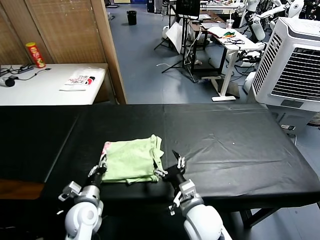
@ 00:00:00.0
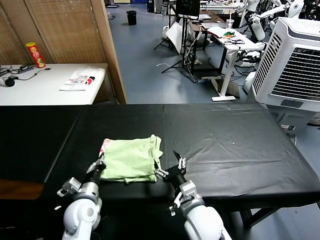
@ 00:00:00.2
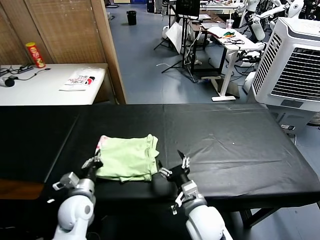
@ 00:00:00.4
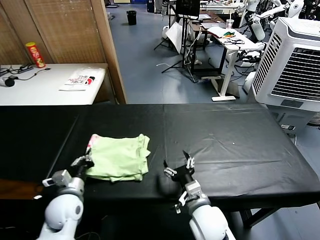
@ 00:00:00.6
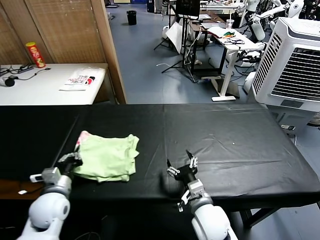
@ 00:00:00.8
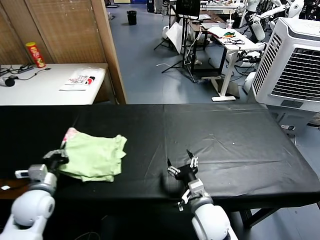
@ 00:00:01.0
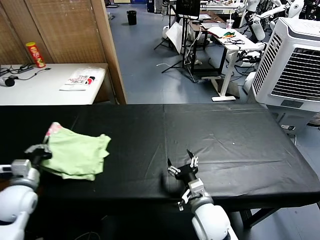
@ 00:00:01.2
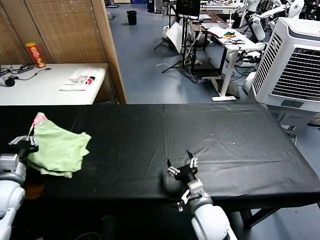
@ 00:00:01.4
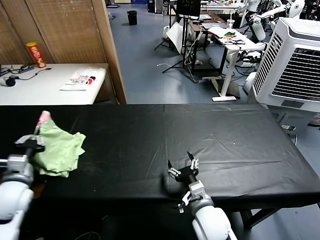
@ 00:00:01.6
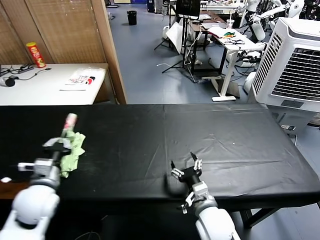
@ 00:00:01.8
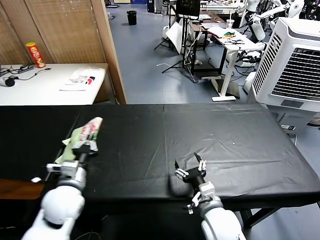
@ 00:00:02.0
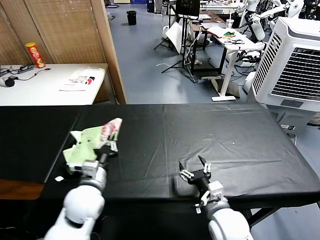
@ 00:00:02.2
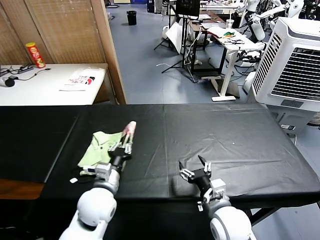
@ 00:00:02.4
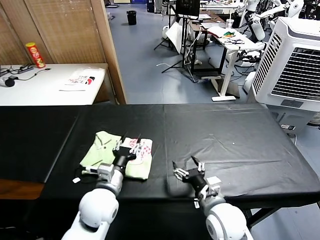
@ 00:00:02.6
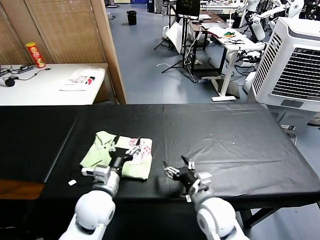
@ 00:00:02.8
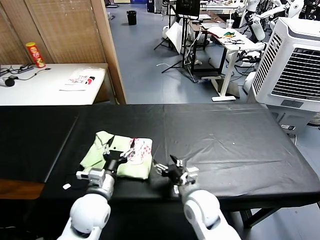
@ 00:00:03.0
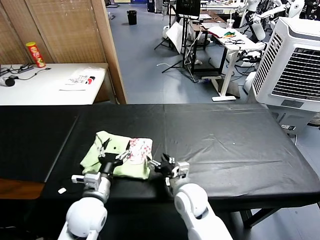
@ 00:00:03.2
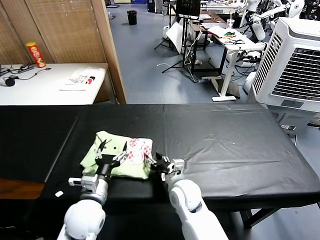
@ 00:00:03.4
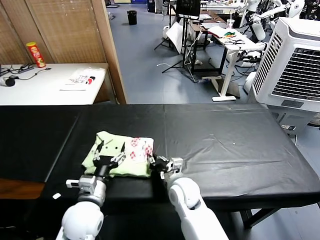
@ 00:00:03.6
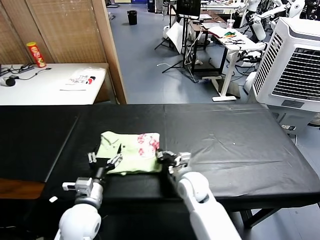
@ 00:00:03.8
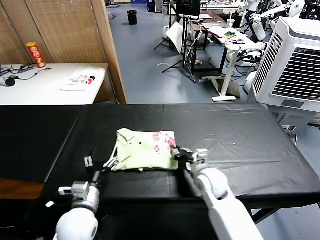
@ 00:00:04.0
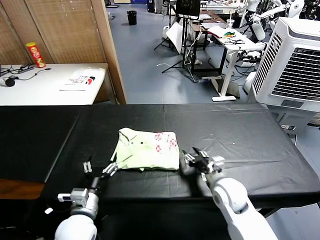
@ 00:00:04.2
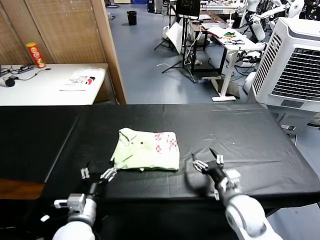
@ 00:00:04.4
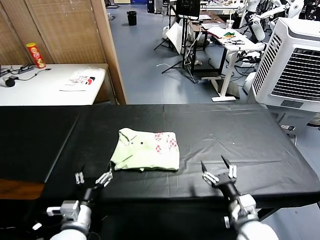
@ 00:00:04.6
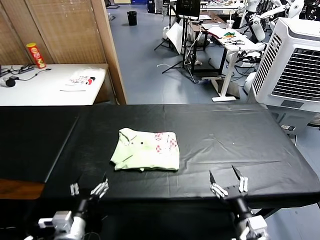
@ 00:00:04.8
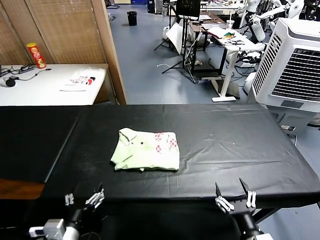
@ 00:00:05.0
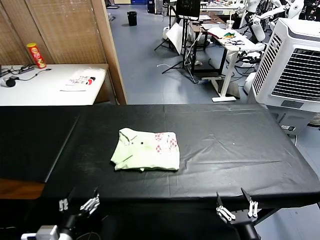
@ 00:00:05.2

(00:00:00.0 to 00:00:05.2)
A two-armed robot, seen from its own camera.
Task of the whole recording: fold and organize the clothes.
Step, 00:00:00.0 - 00:00:02.4: Flip the folded clothes over with left gripper.
Step, 00:00:02.6 - 00:00:04.0: Drag the clothes to the center of the table.
00:00:00.0 - 00:00:01.8: The left gripper goes some 15 cm upward and to the left, and closes.
00:00:01.8 - 00:00:03.4: The left gripper travels to the right by roughly 15 cm, and opens its fingers, while the right gripper goes approximately 10 cm forward and to the left.
00:00:03.4 - 00:00:05.2: The right gripper moves backward and to the right, approximately 30 cm, and closes, then reopens, while the left gripper heads backward, covering some 15 cm.
